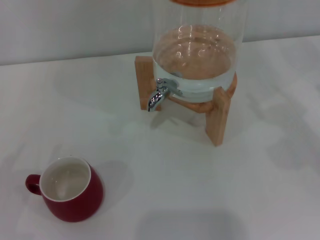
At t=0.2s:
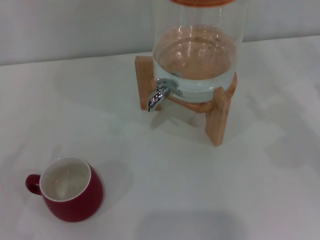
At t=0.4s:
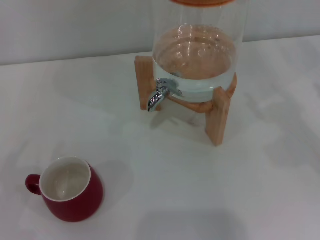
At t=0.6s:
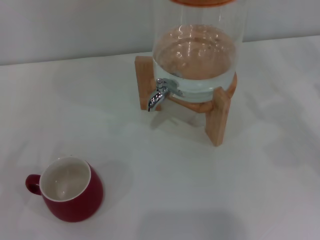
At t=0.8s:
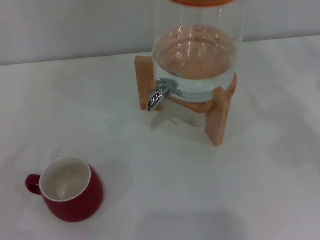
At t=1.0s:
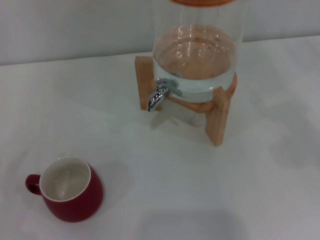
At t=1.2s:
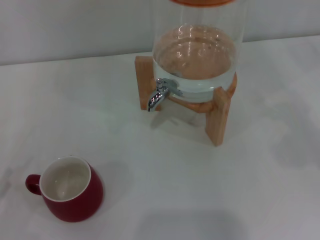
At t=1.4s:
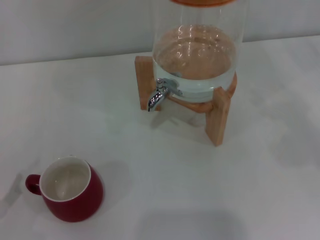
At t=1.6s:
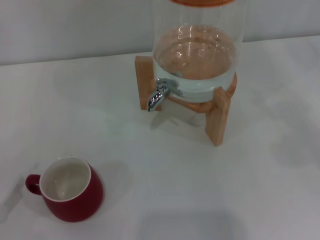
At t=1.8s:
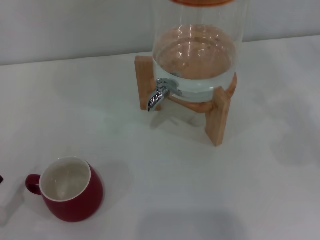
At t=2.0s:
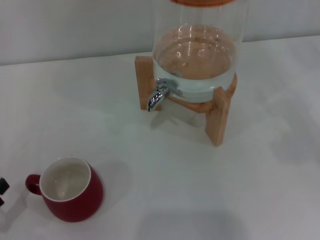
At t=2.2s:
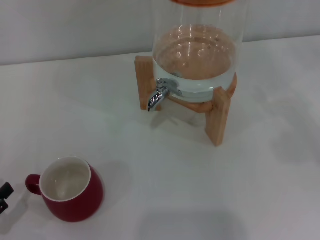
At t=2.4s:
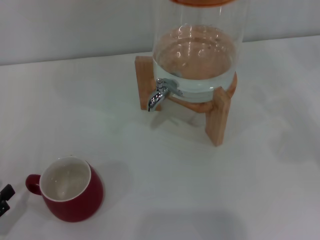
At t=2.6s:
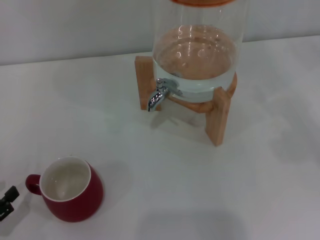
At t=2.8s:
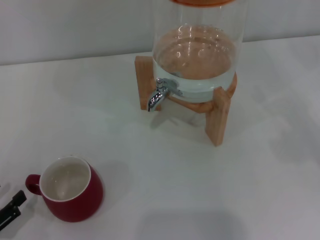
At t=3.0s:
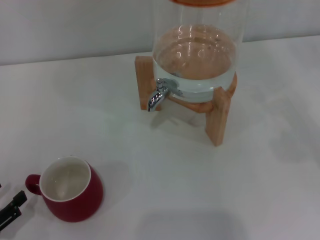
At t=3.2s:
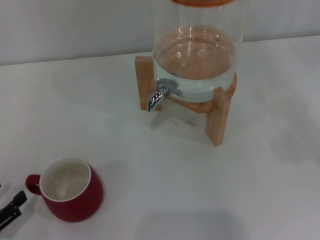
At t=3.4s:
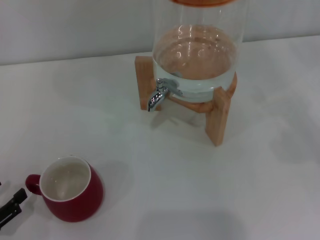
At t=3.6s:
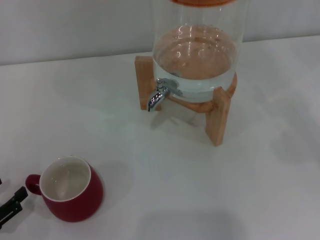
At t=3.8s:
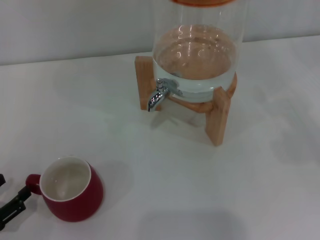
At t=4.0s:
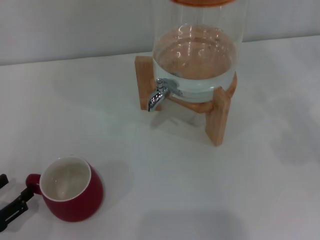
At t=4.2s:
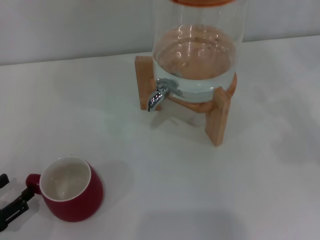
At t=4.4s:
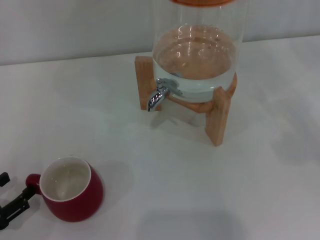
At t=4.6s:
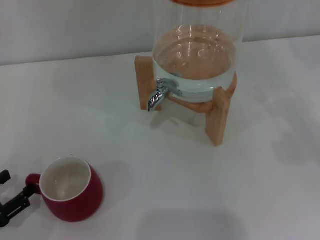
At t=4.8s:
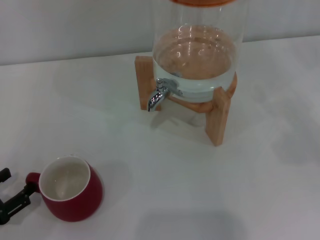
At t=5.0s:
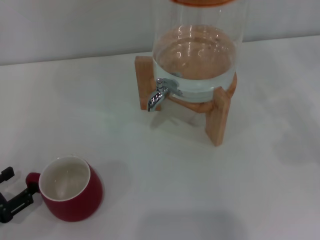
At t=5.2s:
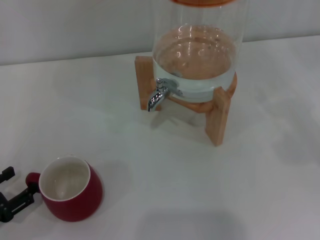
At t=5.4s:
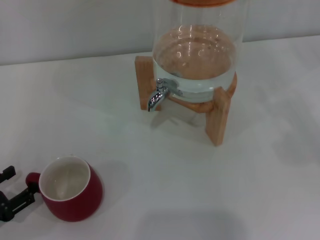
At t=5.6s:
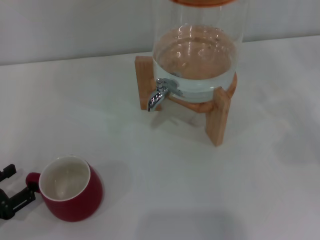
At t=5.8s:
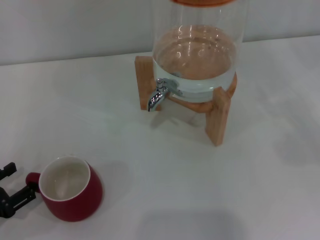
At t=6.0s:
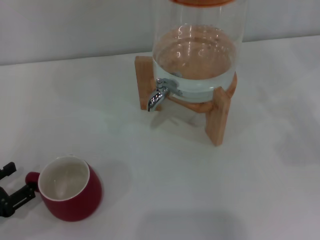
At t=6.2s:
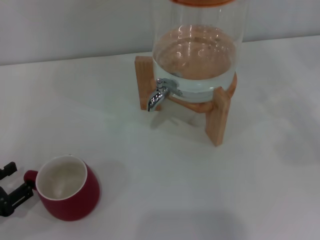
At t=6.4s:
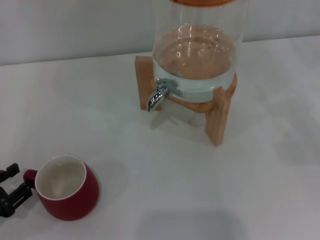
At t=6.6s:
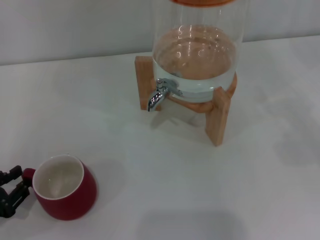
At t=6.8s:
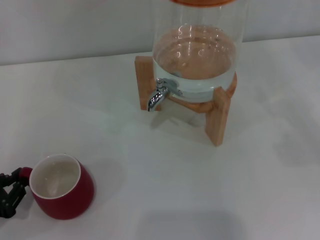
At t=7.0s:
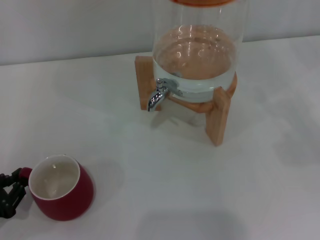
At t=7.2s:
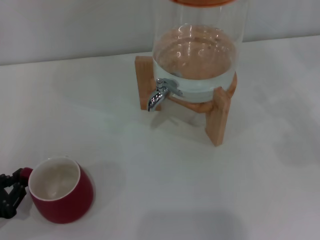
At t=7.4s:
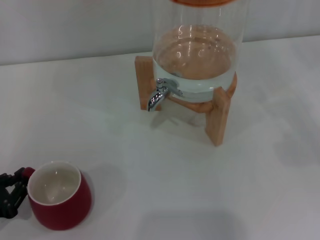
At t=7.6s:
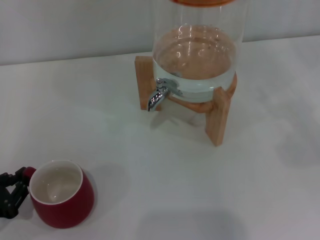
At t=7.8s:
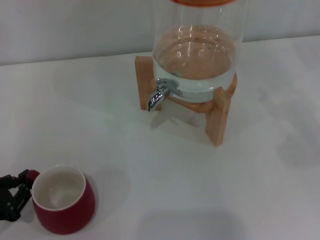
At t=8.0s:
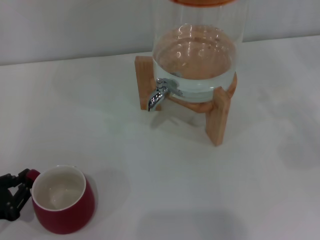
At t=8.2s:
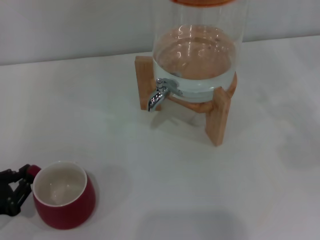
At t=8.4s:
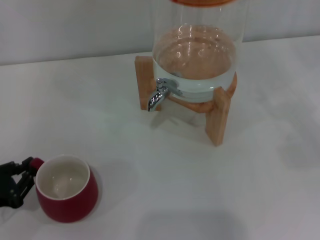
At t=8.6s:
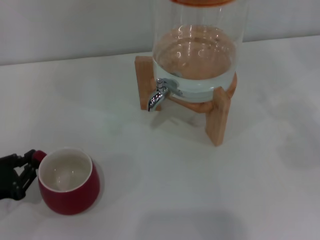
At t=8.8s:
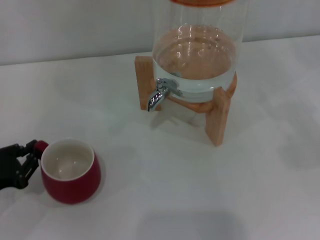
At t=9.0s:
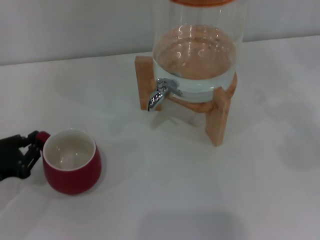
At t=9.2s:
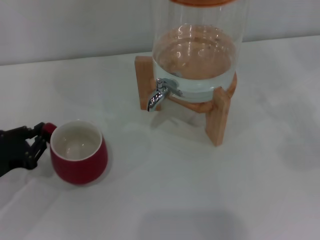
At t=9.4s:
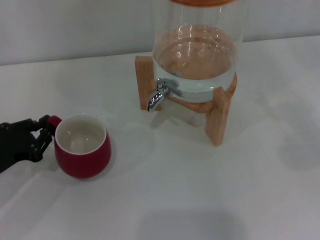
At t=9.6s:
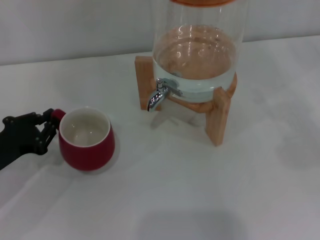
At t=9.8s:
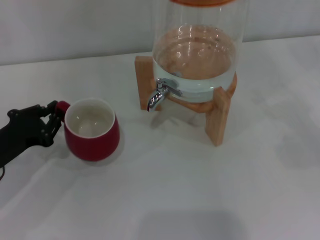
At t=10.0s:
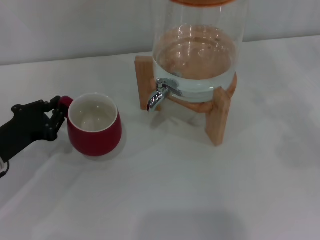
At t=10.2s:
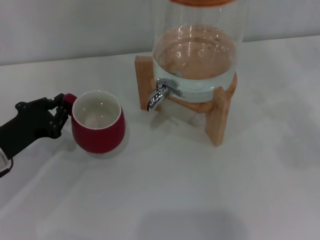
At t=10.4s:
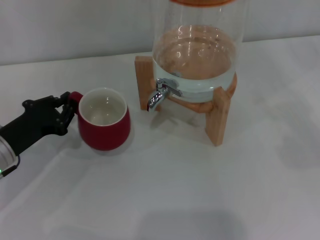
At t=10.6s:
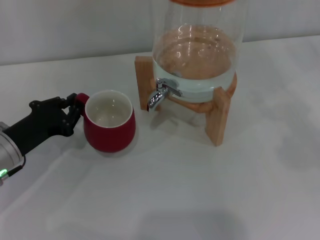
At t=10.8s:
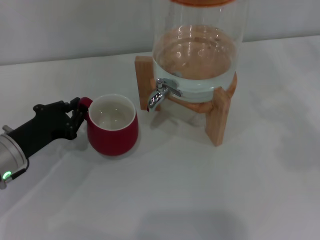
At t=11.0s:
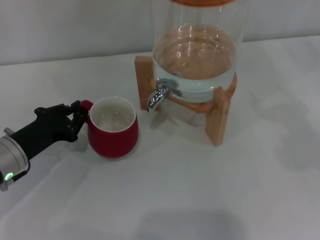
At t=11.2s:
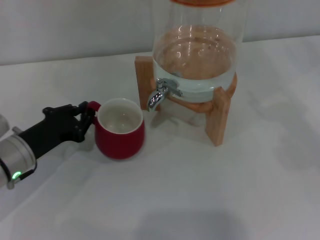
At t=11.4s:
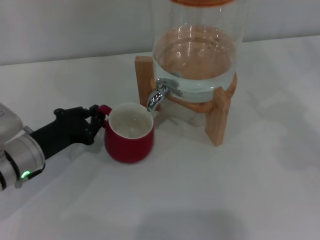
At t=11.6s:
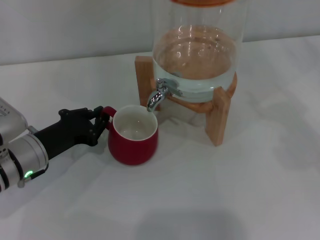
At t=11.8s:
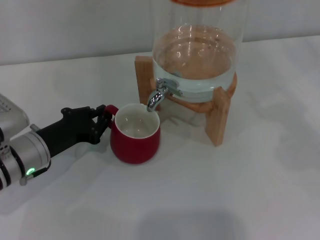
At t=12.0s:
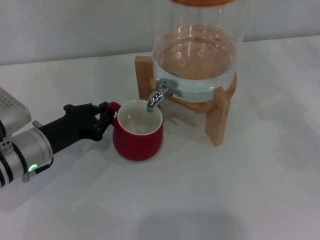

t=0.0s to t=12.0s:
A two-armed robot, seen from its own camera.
Task of the whole recording: the left gripper pick up the red cup and place it horizontally under the faucet, the right gripper turn on the faucet to fill the cup, and then turn off the faucet.
t=1.6s to t=3.0s: The grippers move only a little.
t=4.4s to t=6.0s: The grippers make only small movements.
t=6.0s to t=7.6s: The left gripper closes up.
t=7.6s to t=9.0s: The left gripper is displaced forward by approximately 5 cm.
t=9.0s to t=10.4s: The left gripper heads to the right and forward, covering some 10 cm.
t=10.4s to t=12.0s: There are only small adjustments of the grippers.

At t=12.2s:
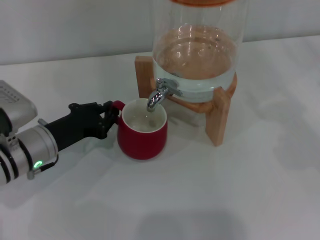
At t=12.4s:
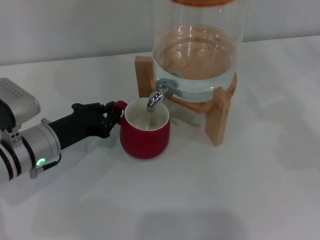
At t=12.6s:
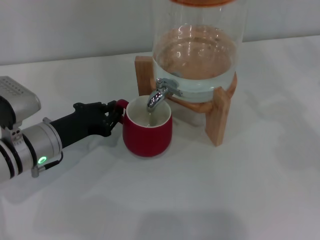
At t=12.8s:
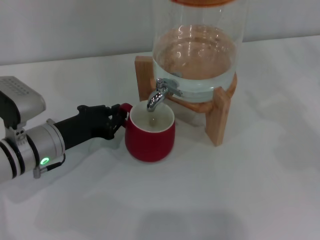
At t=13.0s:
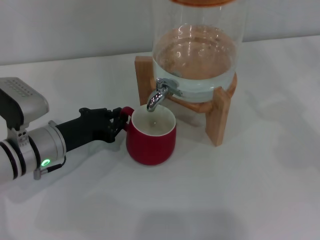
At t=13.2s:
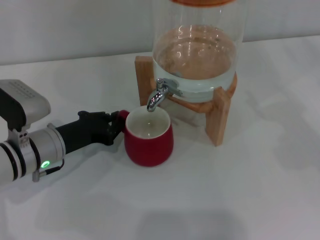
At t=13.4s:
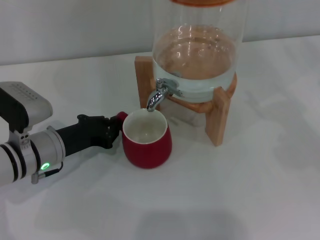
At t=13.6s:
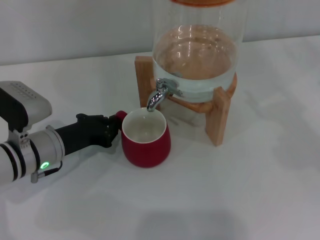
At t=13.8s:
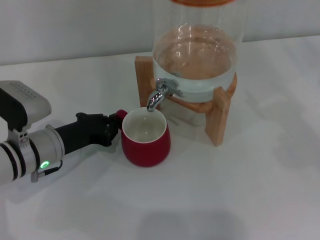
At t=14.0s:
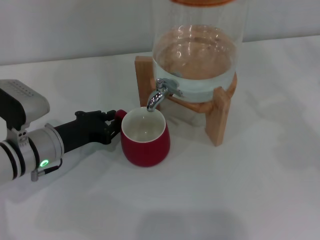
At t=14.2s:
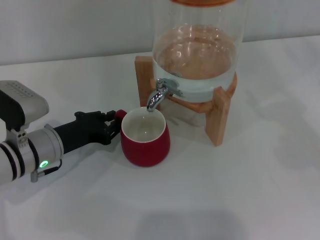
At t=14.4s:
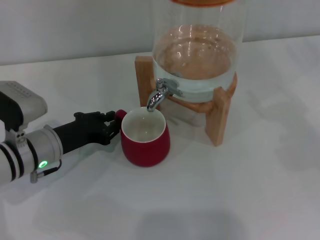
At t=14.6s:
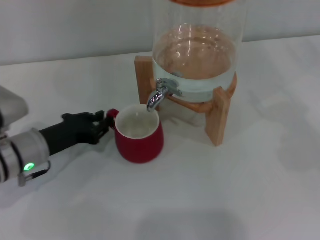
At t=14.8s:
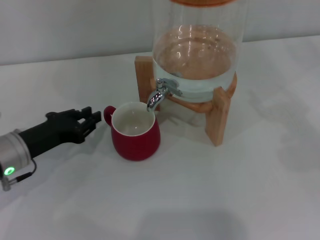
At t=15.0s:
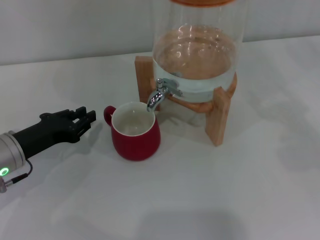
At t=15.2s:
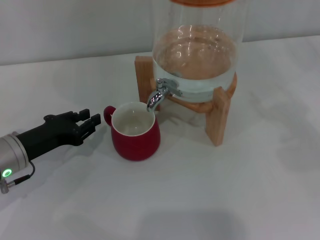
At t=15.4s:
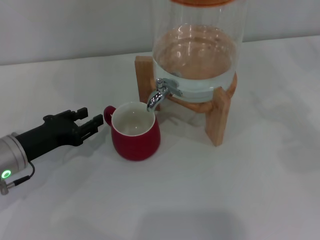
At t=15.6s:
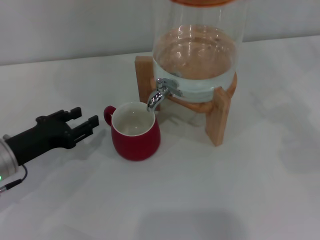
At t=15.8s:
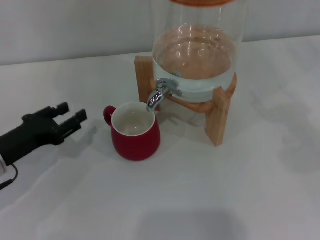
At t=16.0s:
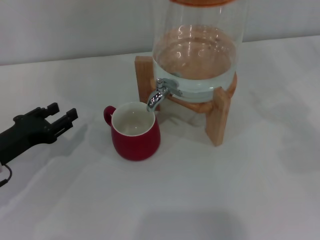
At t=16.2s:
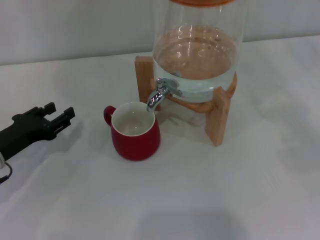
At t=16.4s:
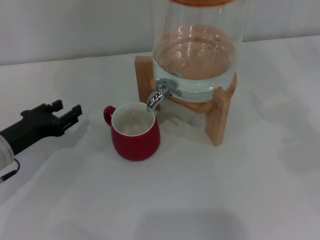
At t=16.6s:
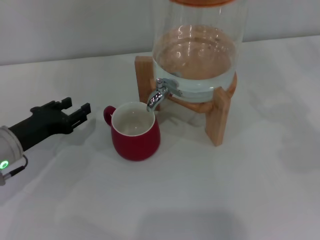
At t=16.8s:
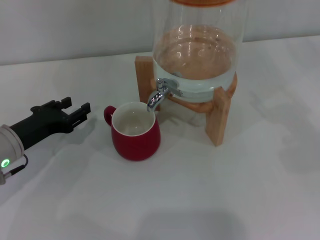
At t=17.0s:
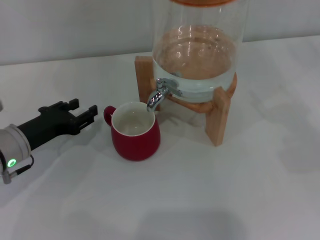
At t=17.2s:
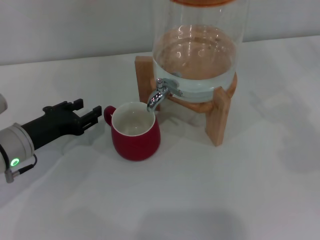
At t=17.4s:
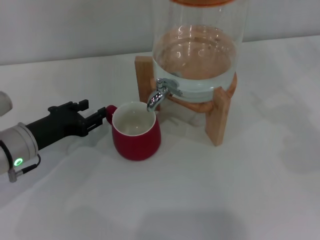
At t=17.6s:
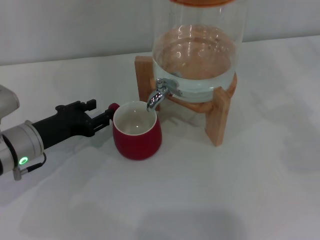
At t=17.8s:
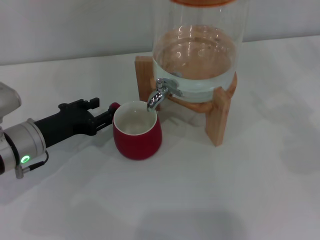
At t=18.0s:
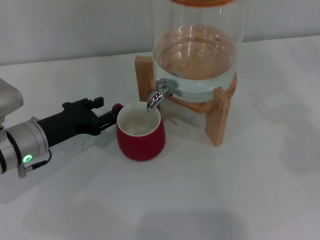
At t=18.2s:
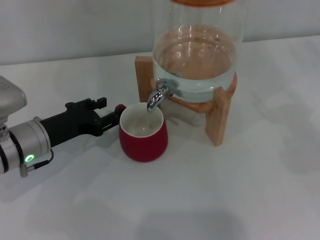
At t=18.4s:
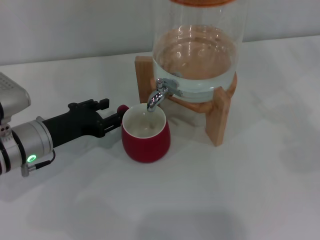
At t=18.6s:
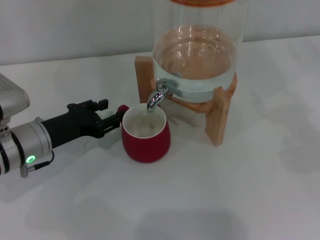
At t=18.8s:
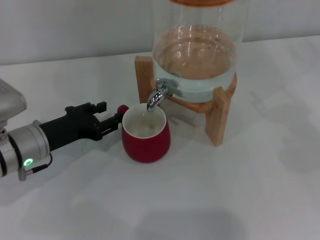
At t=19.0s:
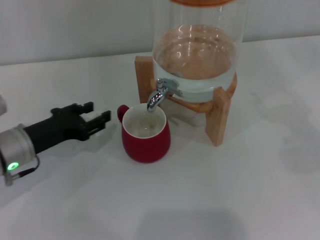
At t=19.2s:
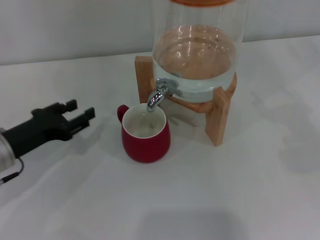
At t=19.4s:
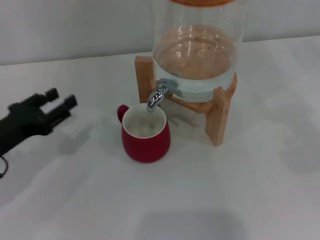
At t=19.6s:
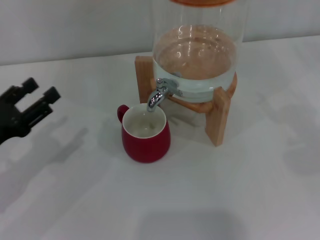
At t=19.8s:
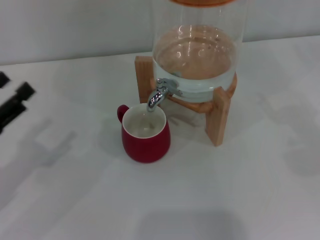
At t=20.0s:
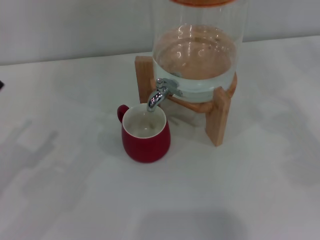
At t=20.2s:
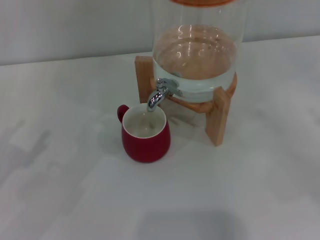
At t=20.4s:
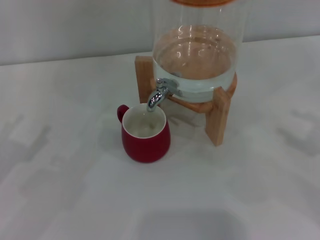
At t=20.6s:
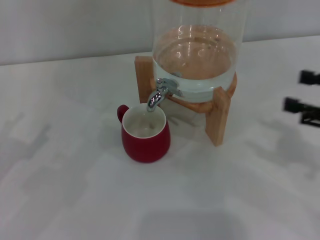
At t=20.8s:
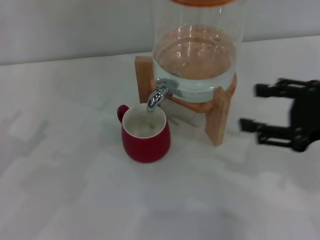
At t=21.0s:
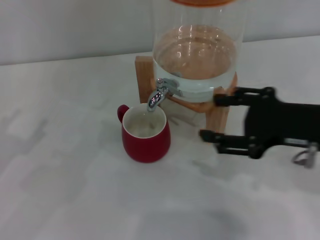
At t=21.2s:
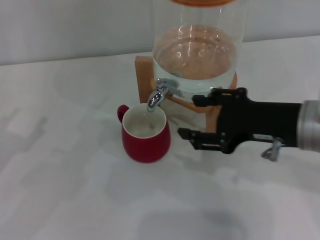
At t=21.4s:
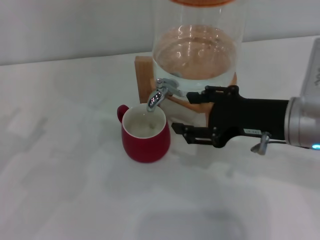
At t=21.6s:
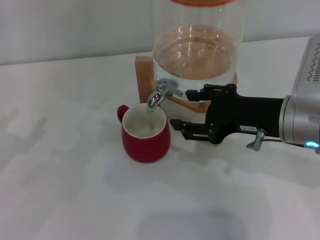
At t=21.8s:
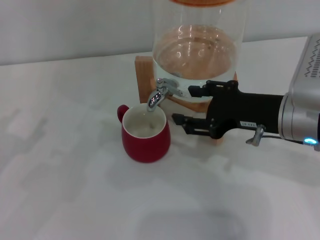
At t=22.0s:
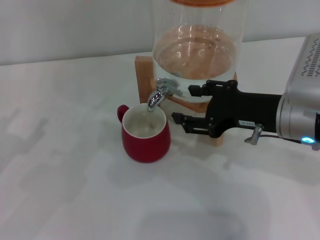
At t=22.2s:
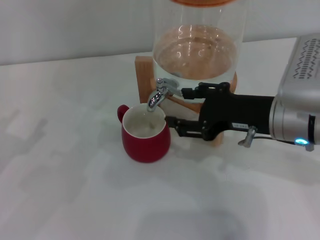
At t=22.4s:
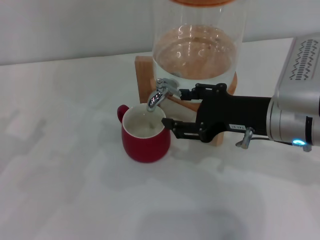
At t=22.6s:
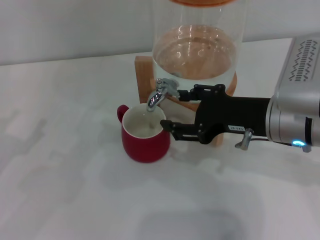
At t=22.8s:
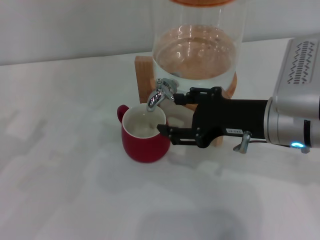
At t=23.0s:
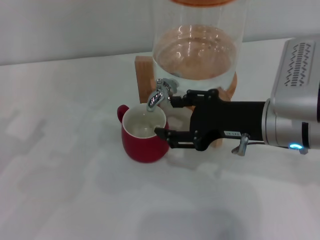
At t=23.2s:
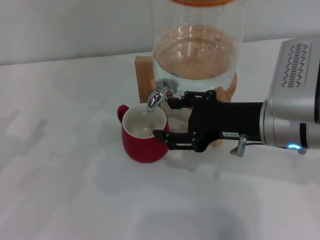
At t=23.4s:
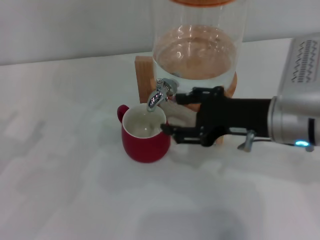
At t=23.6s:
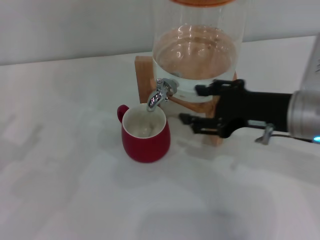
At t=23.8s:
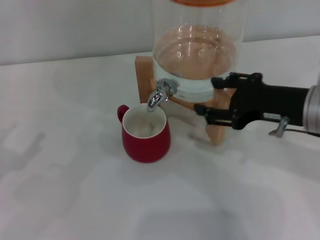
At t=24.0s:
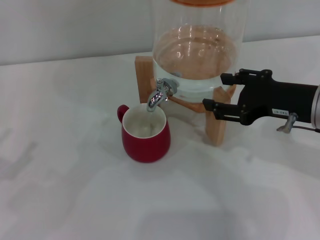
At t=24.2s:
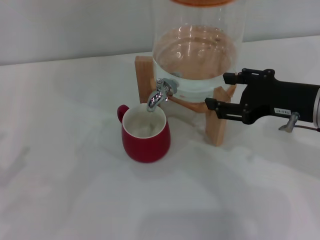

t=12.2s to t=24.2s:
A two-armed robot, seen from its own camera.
Task of the whole recording: the left gripper pick up the red cup and place it horizontally under the faucet, the right gripper turn on the faucet to fill the cup, and then turn off the faucet.
Step, t=12.2s to t=15.8s: Move the cup beneath the water dispenser nozzle with the left gripper.
Step, t=16.2s to t=23.2s: Open the dispenser valve and fill the cup with water with the right gripper.
t=12.2s to t=13.8s: The grippers make only small movements.
t=13.8s to t=15.2s: The left gripper moves to the left, some 5 cm.
t=15.2s to t=16.6s: The left gripper opens up.
t=16.6s to t=18.2s: The grippers make only small movements.
t=18.2s to t=19.8s: The left gripper travels to the left and backward by some 15 cm.
t=19.8s to t=21.2s: The right gripper travels to the left by roughly 25 cm.
t=21.2s to t=22.6s: The grippers move only a little.
t=22.6s to t=24.2s: The left gripper shifts roughly 5 cm backward. The right gripper travels to the right by approximately 5 cm.
